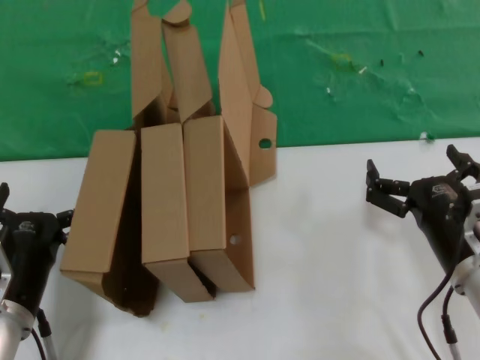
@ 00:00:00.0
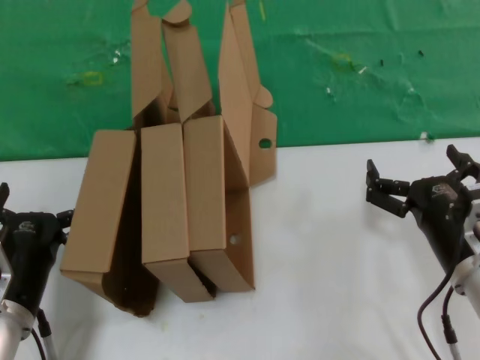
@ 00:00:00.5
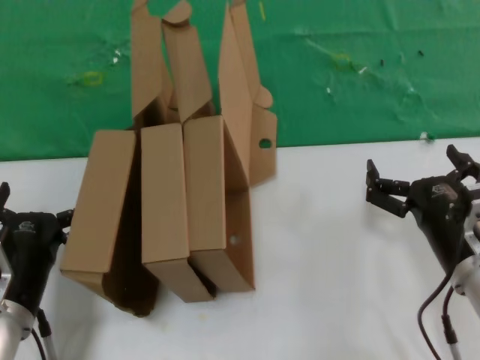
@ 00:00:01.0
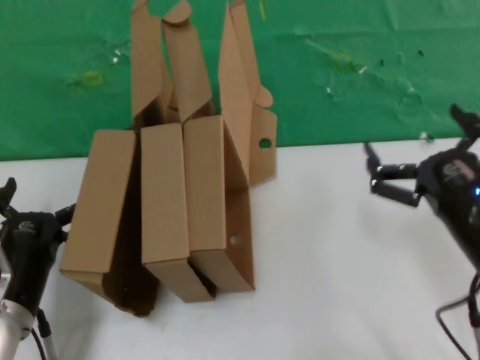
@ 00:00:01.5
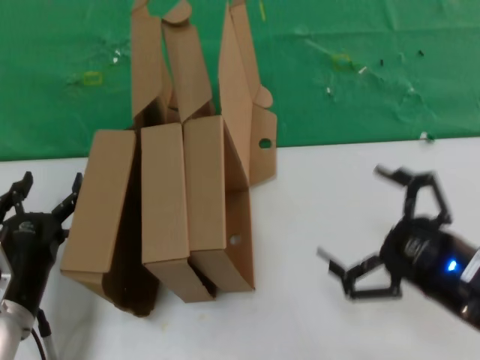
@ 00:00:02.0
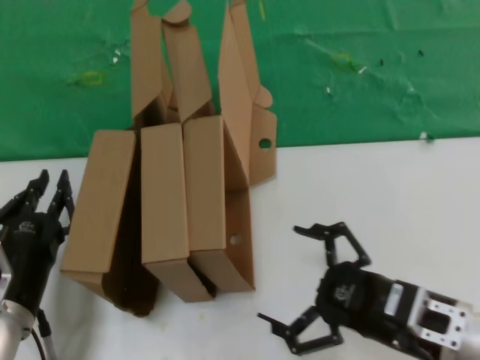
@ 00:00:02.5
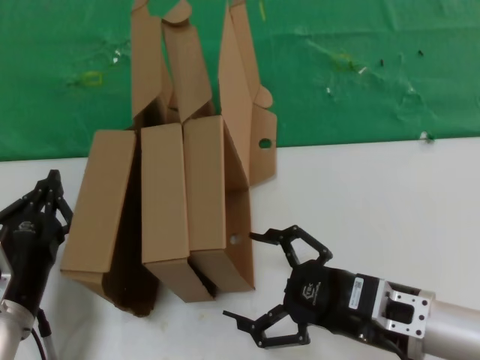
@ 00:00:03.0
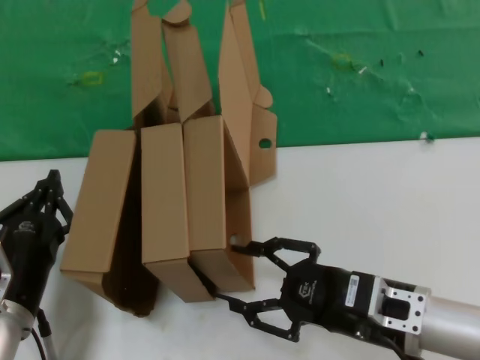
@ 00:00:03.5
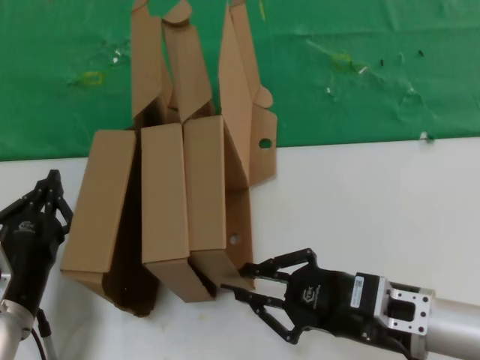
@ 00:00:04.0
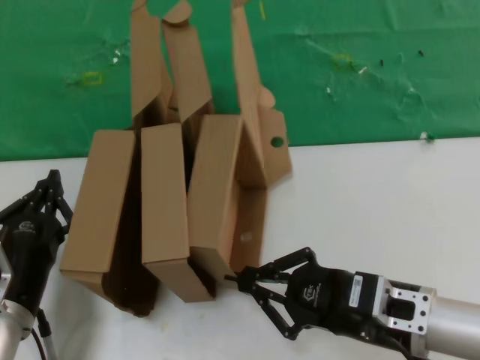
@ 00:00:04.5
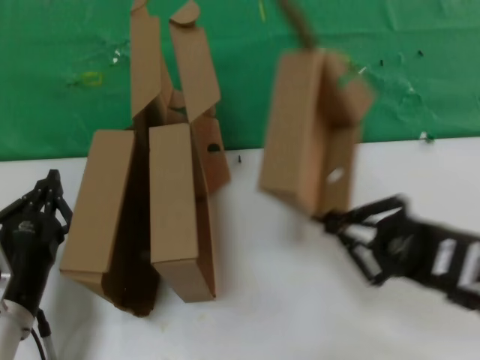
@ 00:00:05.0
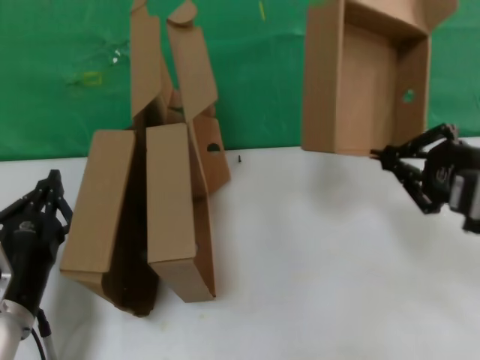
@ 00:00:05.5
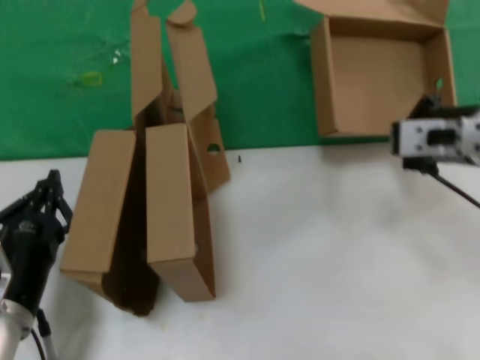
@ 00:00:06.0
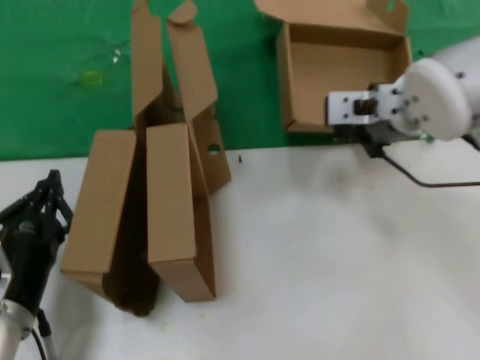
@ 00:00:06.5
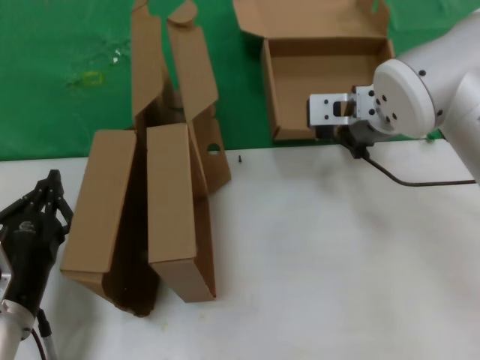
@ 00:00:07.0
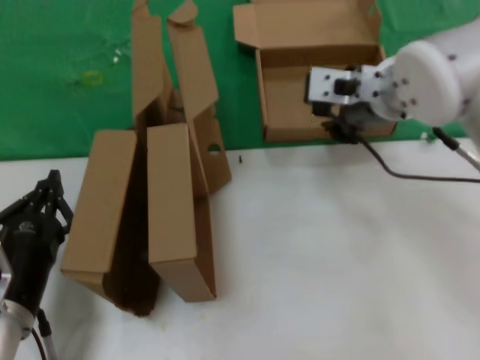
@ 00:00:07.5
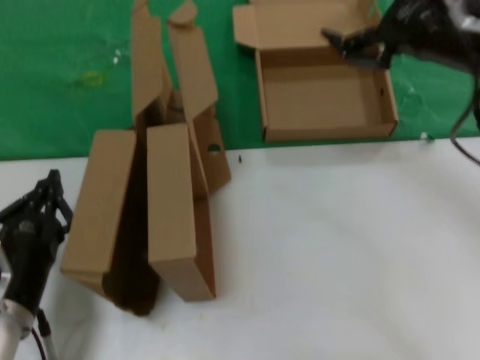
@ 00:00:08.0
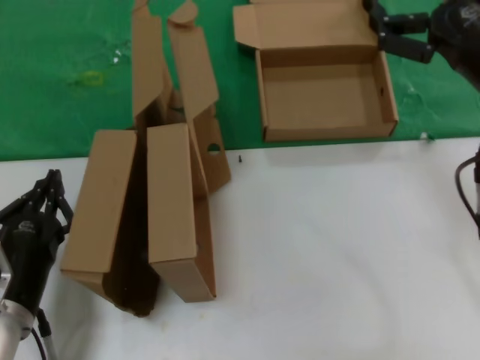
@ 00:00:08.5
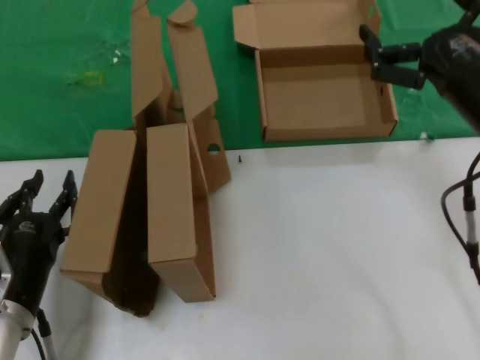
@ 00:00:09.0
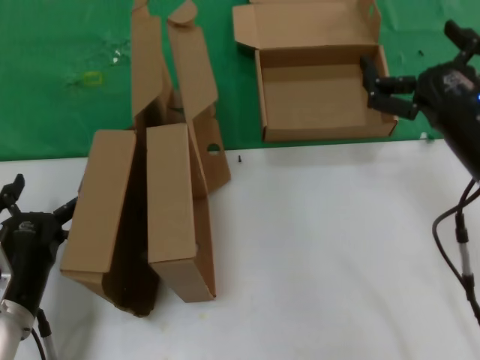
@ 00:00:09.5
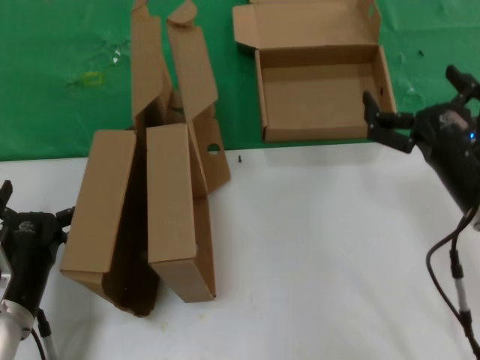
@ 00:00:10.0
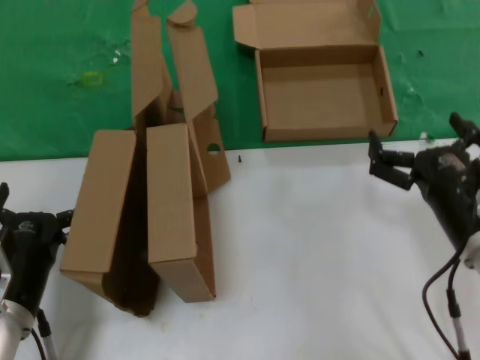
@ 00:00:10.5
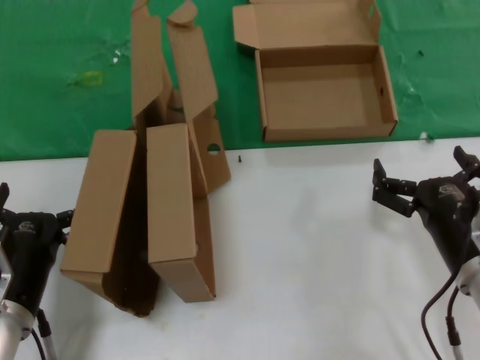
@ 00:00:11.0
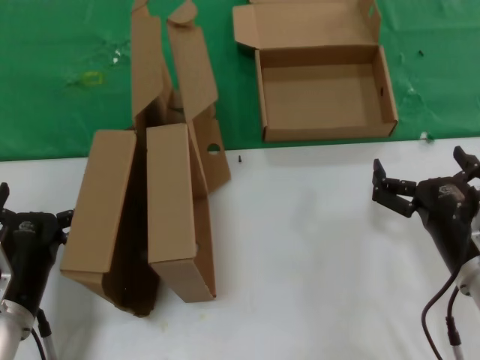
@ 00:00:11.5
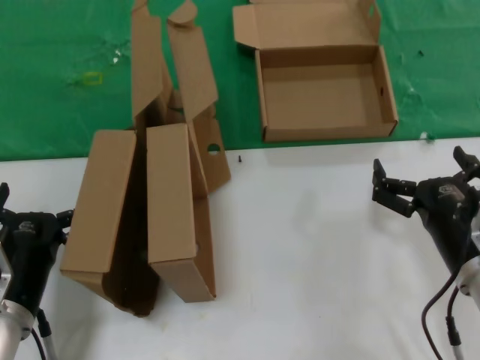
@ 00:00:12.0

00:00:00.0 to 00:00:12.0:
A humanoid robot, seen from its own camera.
Task of the whole recording: pick up the paper box and put it at the back.
Step, 00:00:00.0 to 00:00:04.0: Grasp the paper box.
Step, 00:00:04.5 to 00:00:07.5: Place the paper box on the table.
00:00:00.0 to 00:00:02.0: The right hand heads backward and upward, covering approximately 10 cm.
00:00:02.0 to 00:00:04.0: The right hand travels to the left and forward by about 10 cm.
00:00:04.0 to 00:00:06.0: The right hand shifts approximately 20 cm upward and forward.
00:00:06.0 to 00:00:08.0: The right hand travels upward by about 5 cm, and reaches approximately 10 cm to the left, then returns.
00:00:08.0 to 00:00:10.0: The right hand heads downward, covering roughly 20 cm.
00:00:10.0 to 00:00:12.0: The right hand moves downward, about 5 cm.
